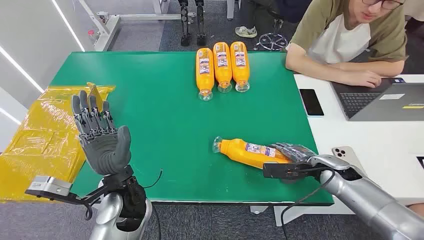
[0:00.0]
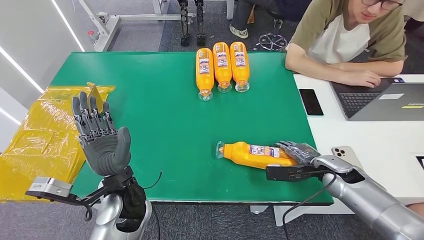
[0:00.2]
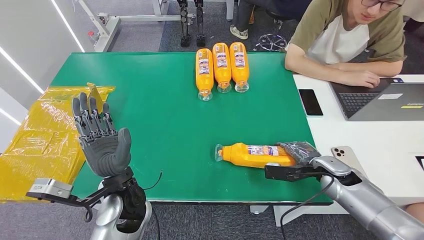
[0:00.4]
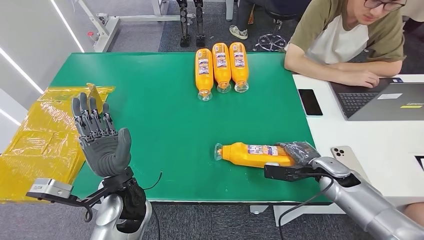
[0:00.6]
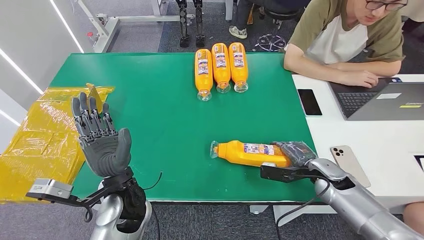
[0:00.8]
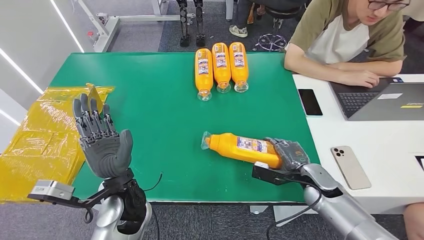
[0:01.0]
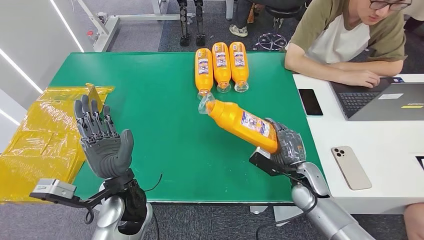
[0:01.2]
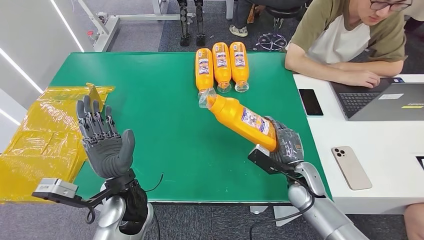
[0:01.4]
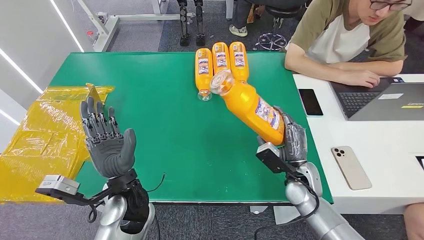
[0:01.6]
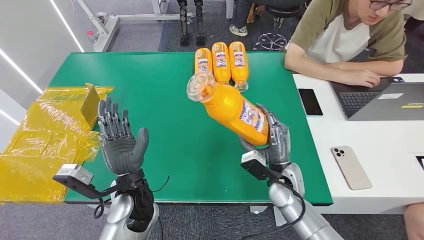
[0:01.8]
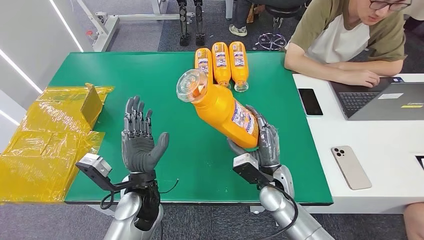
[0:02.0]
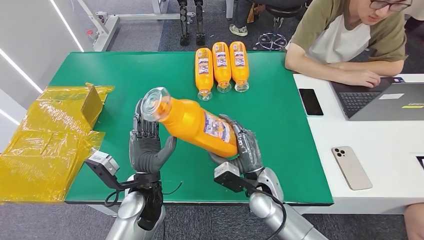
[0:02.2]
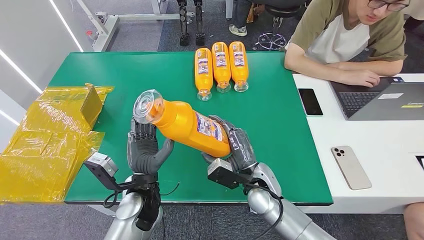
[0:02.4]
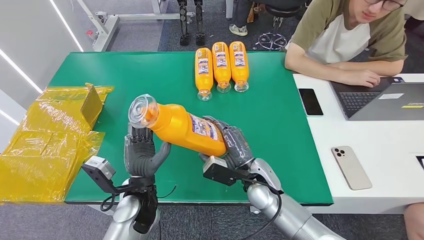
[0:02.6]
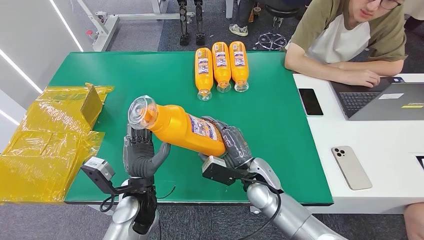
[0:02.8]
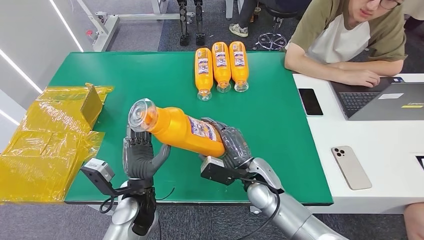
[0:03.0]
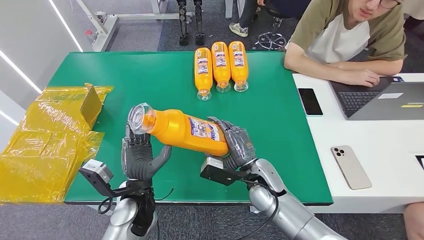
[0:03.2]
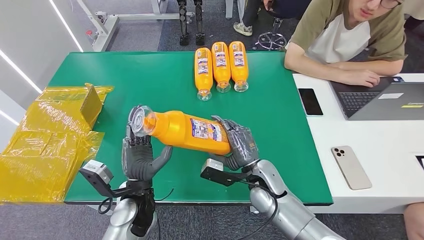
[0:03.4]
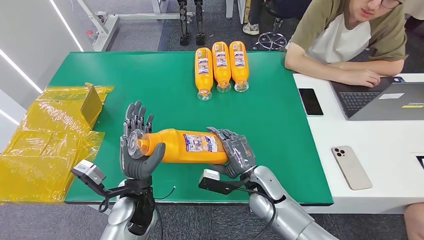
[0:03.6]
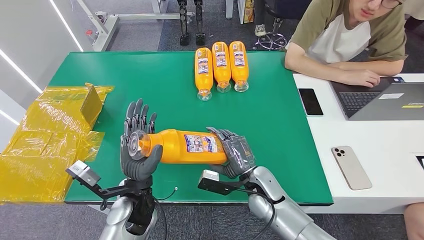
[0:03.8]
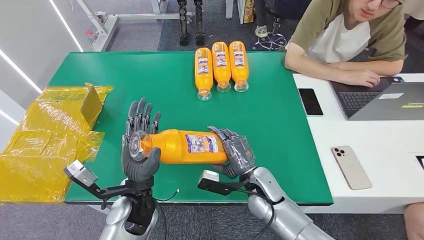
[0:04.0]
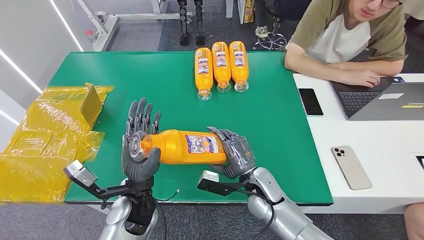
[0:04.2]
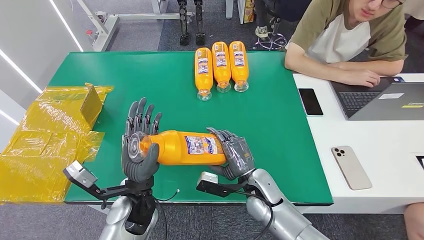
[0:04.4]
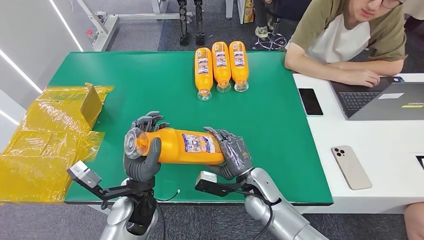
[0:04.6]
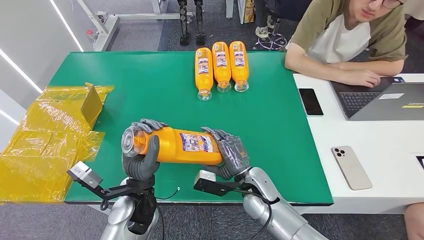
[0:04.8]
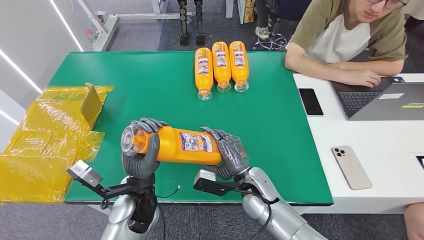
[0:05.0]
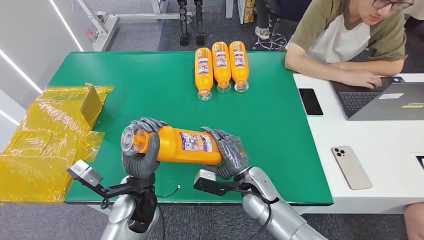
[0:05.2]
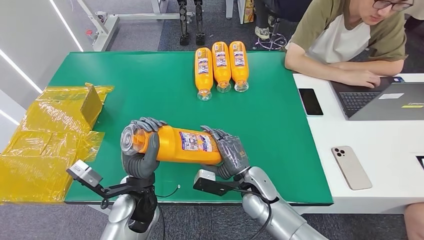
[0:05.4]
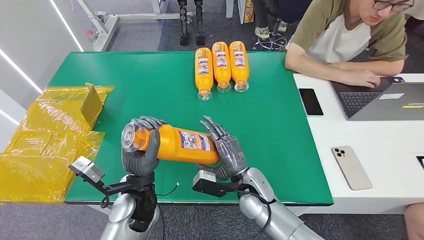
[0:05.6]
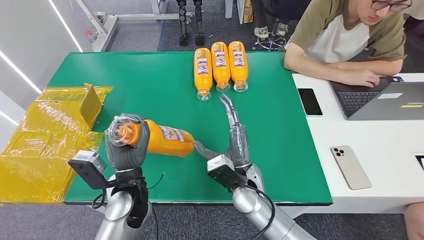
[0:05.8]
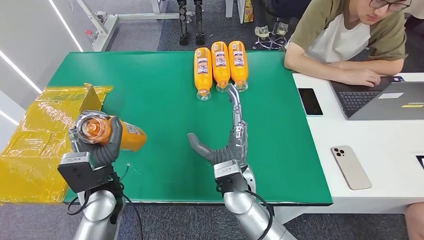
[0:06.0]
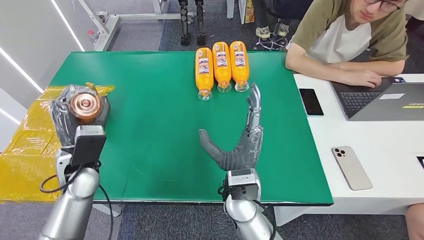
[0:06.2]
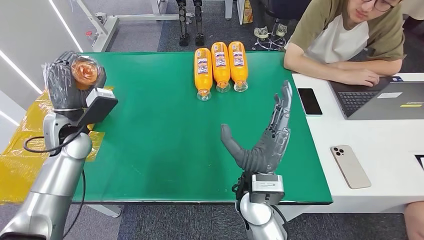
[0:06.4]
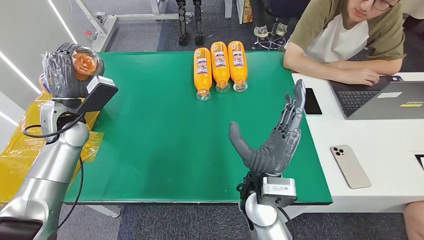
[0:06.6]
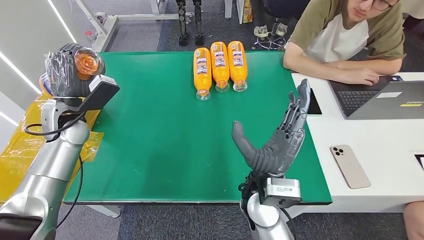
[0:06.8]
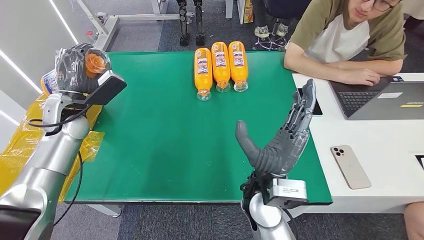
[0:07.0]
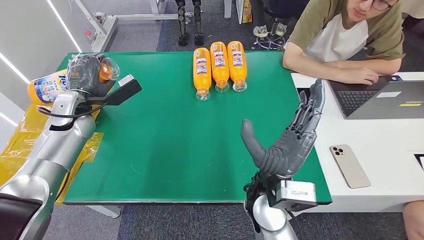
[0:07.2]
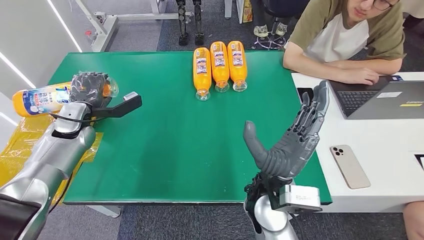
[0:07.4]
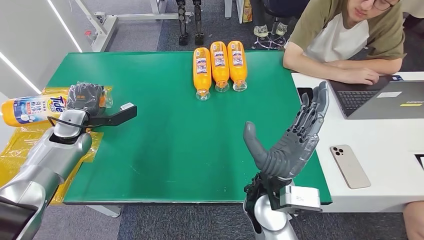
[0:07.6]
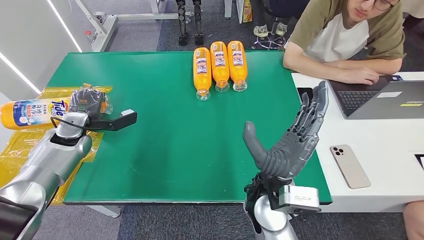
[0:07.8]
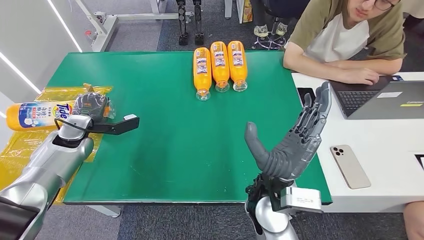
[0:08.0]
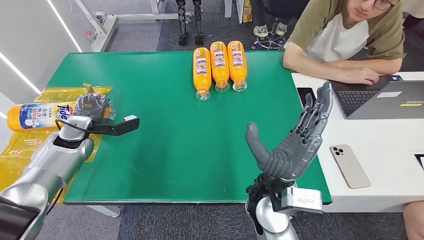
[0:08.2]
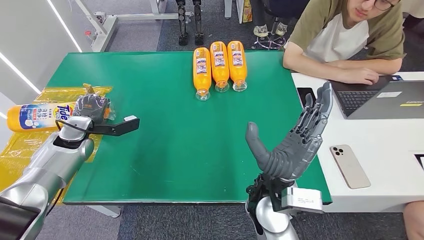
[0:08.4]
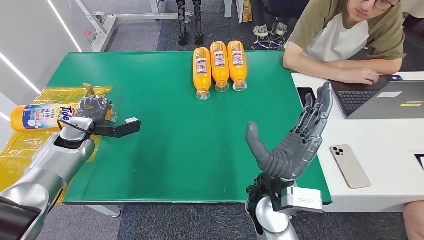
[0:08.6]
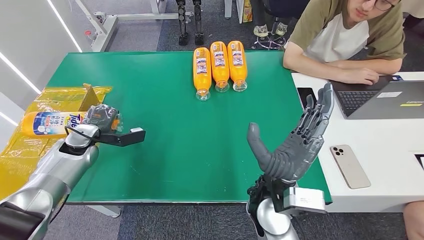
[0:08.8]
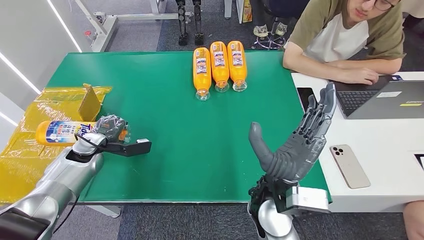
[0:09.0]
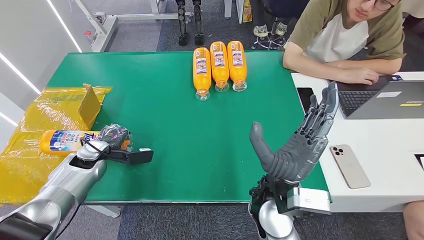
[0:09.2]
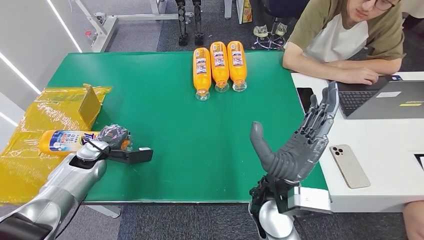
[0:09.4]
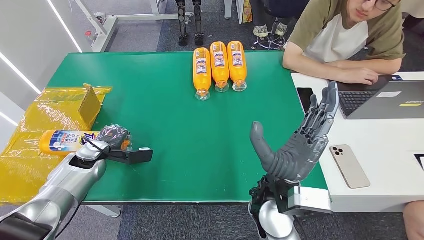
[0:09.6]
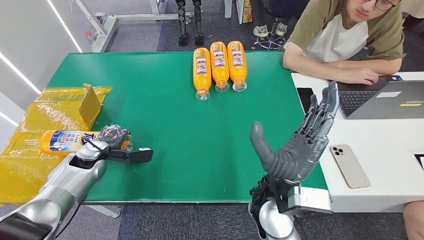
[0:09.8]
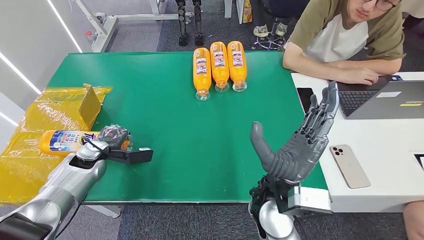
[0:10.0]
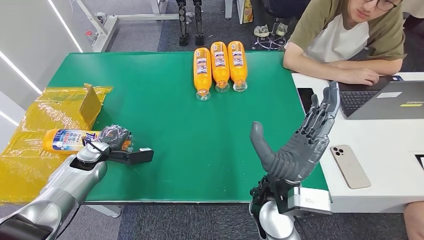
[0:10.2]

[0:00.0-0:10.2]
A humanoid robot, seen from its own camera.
Step, 0:00.0 to 0:04.6: Pick up the bottle from the table.
Step, 0:05.0 to 0:10.0: Turn the bottle to the front side.
0:04.4 to 0:05.8: The right hand shifts by some 5 cm.
0:07.2 to 0:08.8: The left hand goes approximately 10 cm downward.
0:08.8 to 0:10.2: The left hand shifts by about 5 cm.
